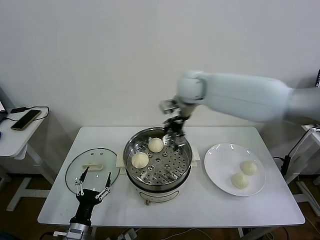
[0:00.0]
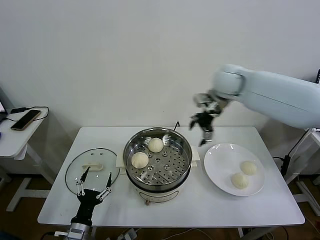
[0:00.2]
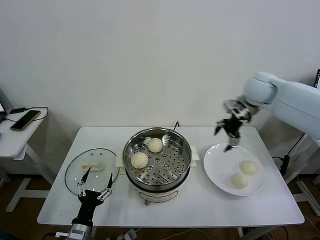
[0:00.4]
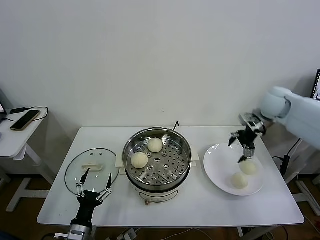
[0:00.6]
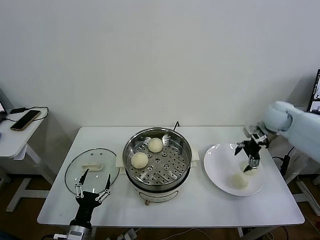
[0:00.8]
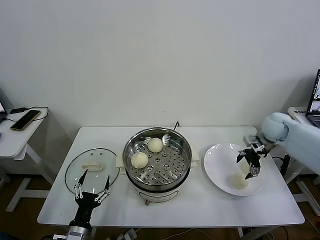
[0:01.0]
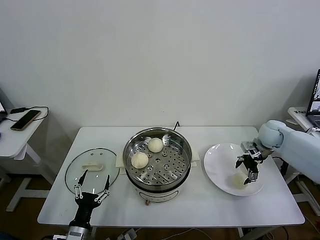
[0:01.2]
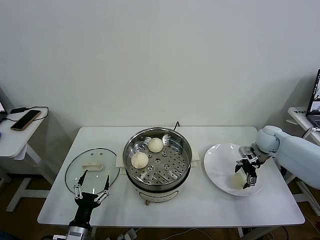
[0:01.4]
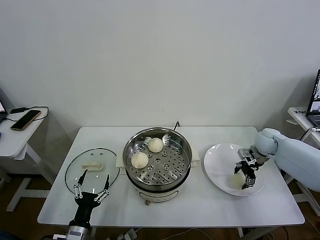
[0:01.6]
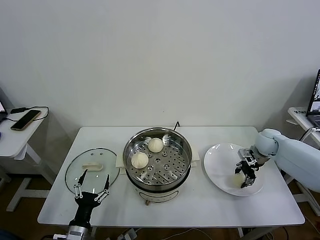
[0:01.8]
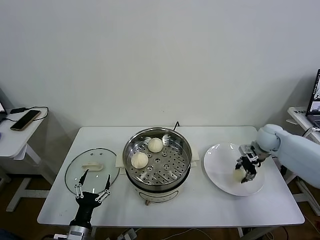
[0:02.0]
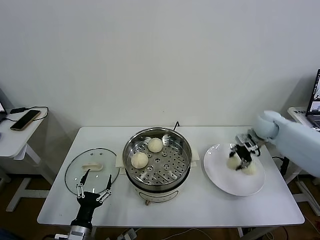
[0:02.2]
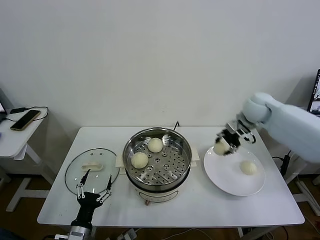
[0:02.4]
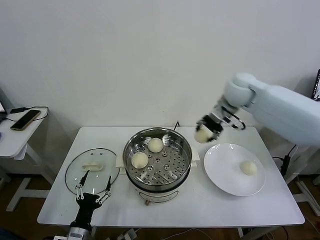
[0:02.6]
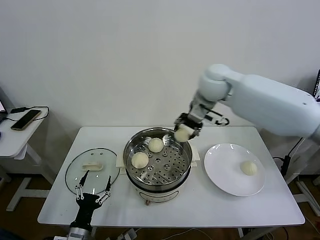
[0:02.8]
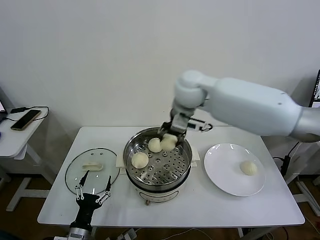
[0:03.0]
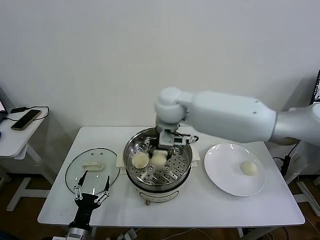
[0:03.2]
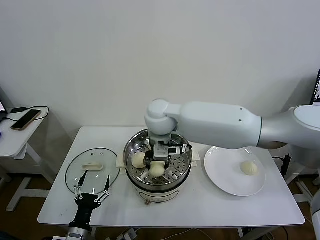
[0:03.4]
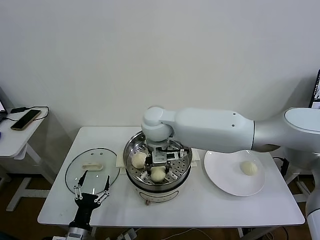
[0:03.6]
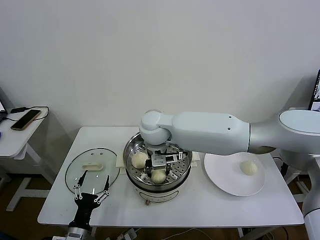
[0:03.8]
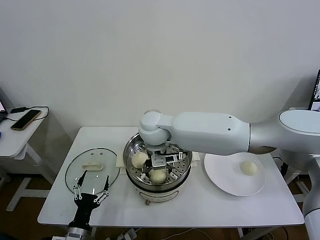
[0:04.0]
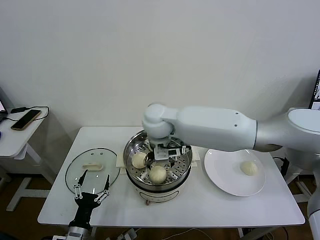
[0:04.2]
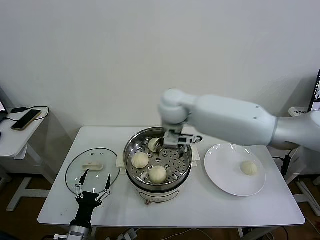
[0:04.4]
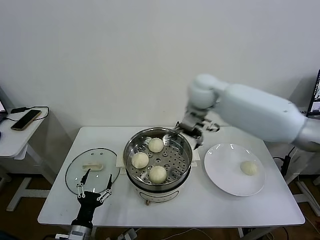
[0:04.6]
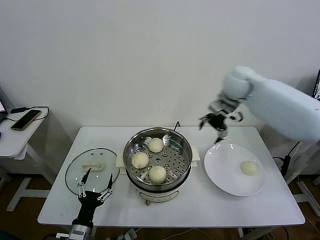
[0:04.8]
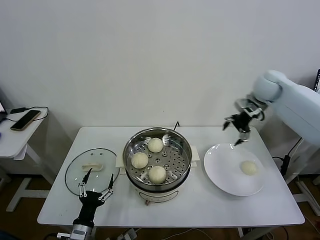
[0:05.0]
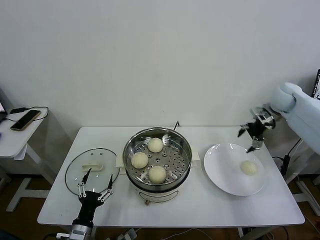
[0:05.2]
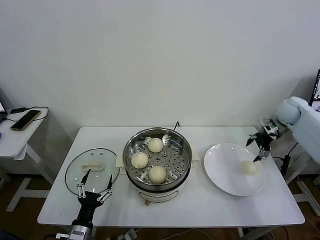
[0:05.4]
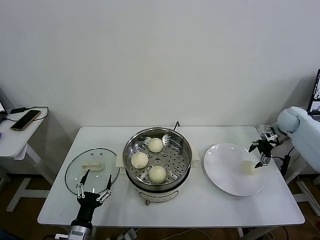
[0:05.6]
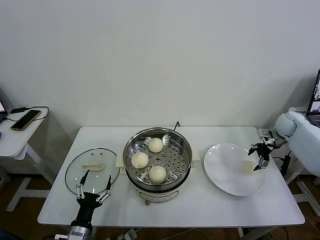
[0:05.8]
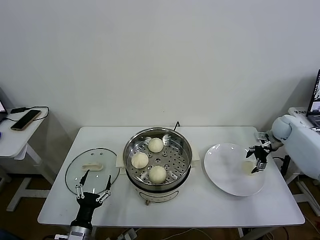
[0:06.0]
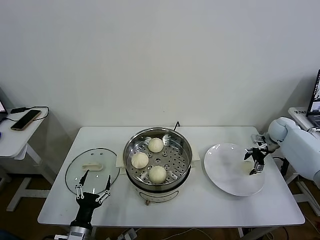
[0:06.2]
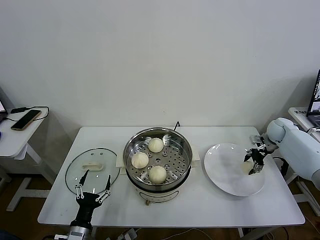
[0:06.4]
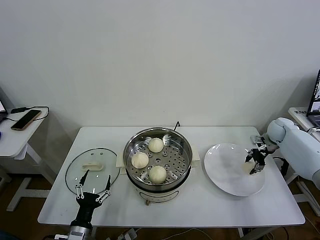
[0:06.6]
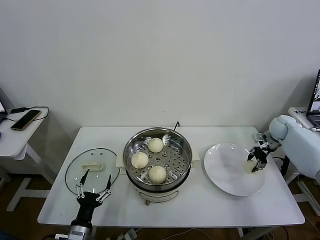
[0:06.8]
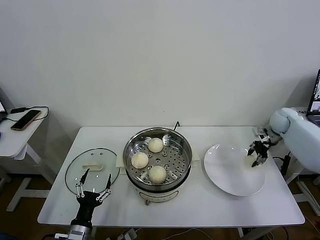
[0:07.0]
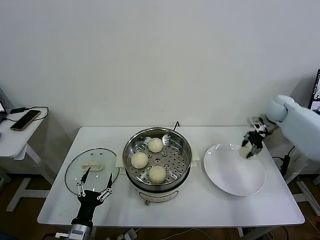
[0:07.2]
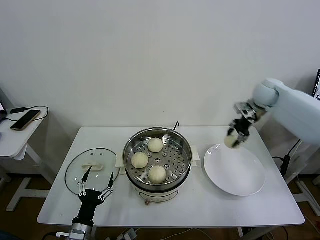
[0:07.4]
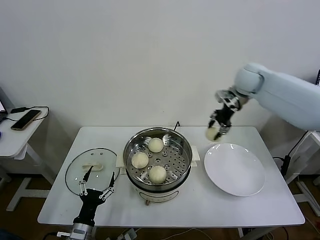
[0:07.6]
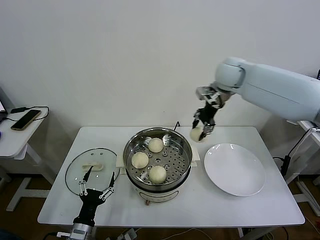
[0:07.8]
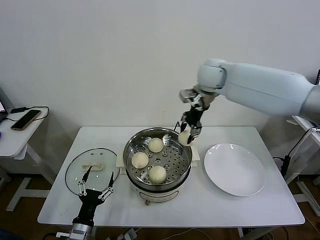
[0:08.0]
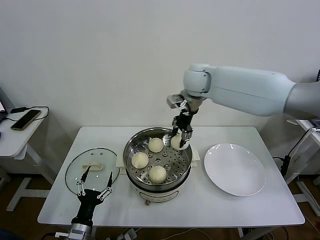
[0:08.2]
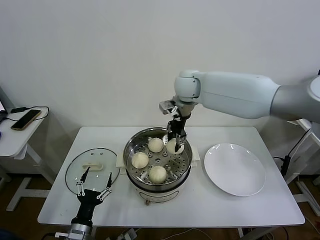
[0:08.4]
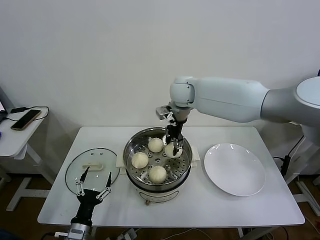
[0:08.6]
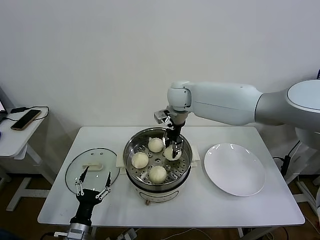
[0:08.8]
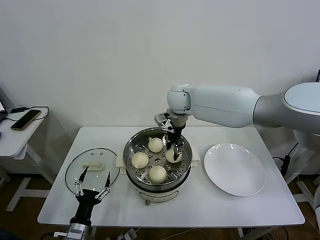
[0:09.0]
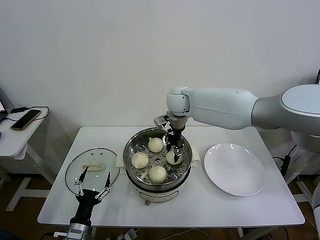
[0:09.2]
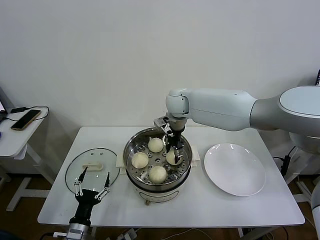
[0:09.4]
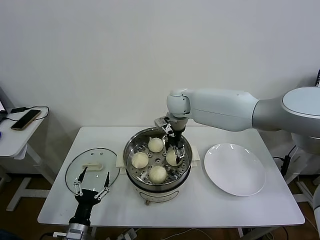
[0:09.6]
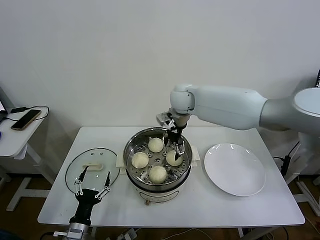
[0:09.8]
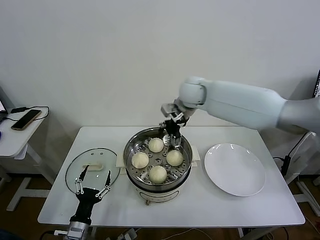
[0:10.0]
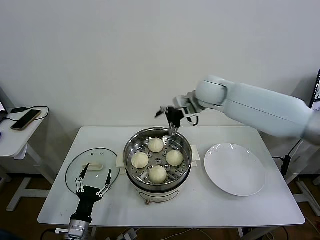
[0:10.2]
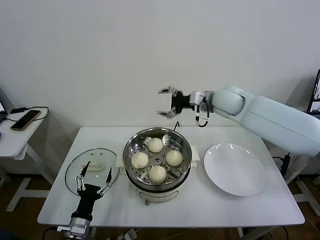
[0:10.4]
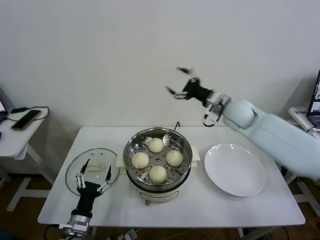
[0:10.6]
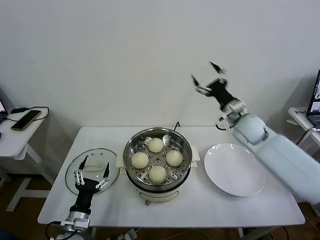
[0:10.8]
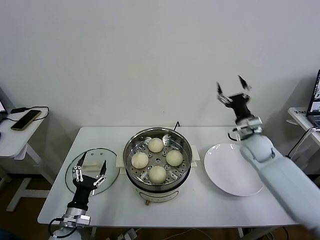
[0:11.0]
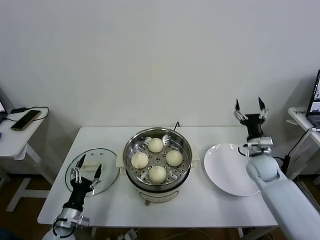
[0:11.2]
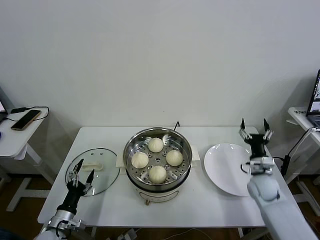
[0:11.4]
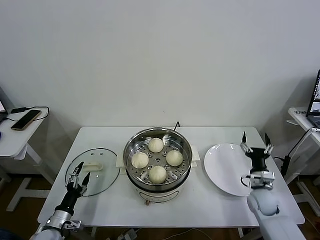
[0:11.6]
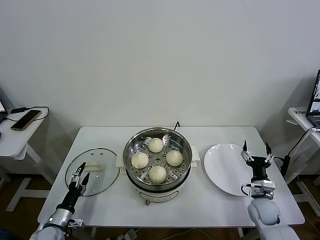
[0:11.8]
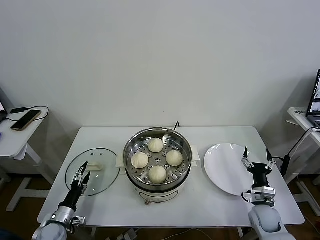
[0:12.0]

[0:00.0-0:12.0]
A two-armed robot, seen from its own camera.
Task of the whole recording: take steamed baozi put them in steamer then cover it.
Step, 0:00.0 to 0:01.8: Grasp the baozi in the plate with right gripper.
Step, 0:02.0 to 0:04.0: Place the baozi on the steamer with right gripper.
Step, 0:04.2 to 0:06.6: Grasp the baozi in the plate with right gripper.
Step, 0:06.8 to 0:09.6: Place the baozi on the steamer with right gripper.
0:00.0 to 0:01.6: The right gripper travels to the right and downward by about 35 cm.
0:01.6 to 0:03.0: The right gripper travels to the left and upward by roughly 40 cm, and closes its fingers.
0:03.0 to 0:04.4: The right gripper moves approximately 10 cm downward and comes back, and opens up.
0:04.4 to 0:06.0: The right gripper shifts about 40 cm to the right.
0:06.0 to 0:07.6: The right gripper shifts some 30 cm to the left and upward, and closes its fingers.
0:07.6 to 0:09.0: The right gripper moves to the left, some 20 cm.
0:09.0 to 0:10.4: The right gripper is displaced to the right by about 15 cm, and opens up.
0:10.4 to 0:12.0: The left gripper shifts some 15 cm to the left, downward and forward, while the right gripper heads downward, backward and to the right, covering some 50 cm.

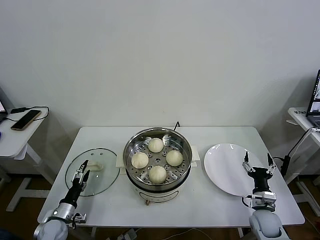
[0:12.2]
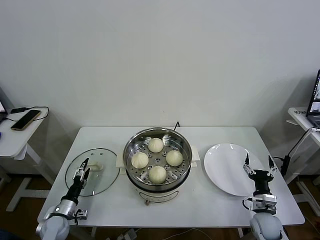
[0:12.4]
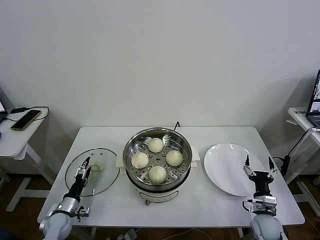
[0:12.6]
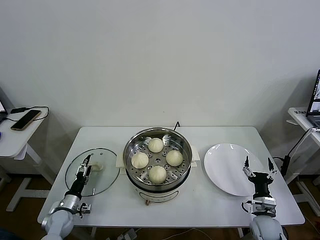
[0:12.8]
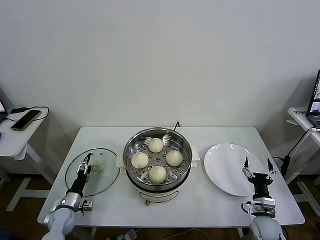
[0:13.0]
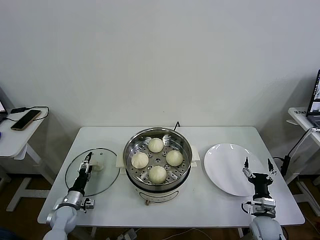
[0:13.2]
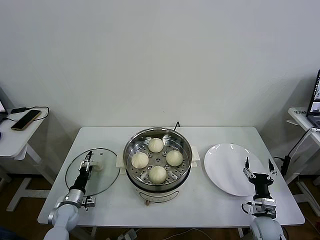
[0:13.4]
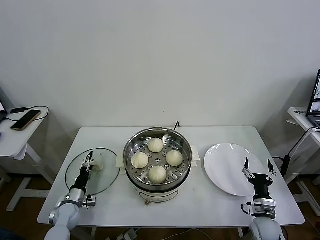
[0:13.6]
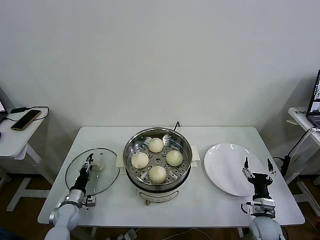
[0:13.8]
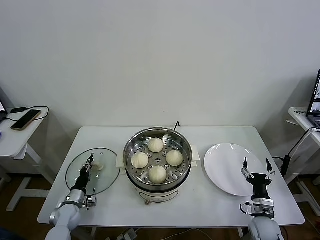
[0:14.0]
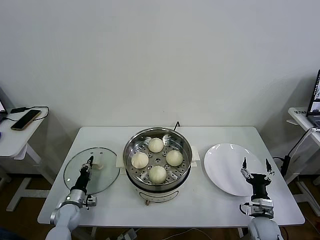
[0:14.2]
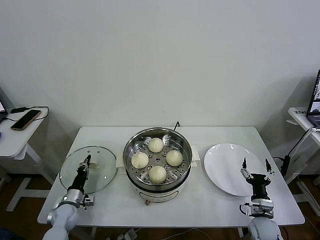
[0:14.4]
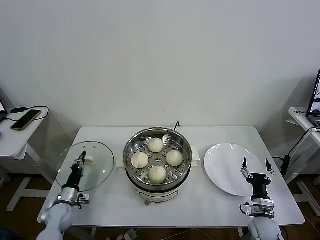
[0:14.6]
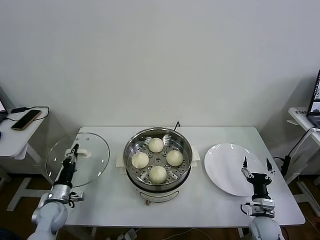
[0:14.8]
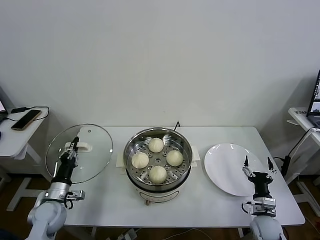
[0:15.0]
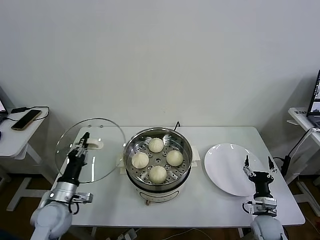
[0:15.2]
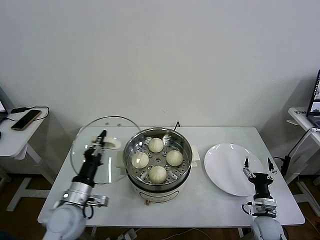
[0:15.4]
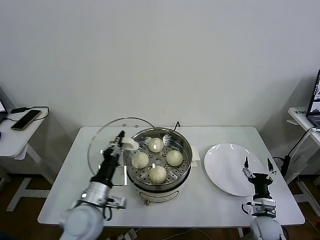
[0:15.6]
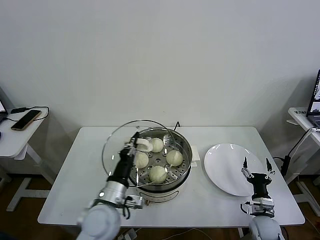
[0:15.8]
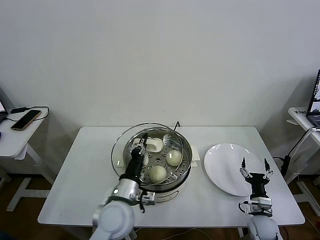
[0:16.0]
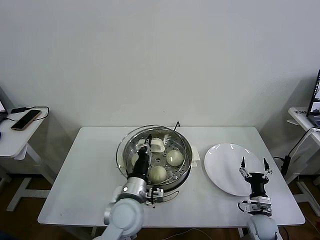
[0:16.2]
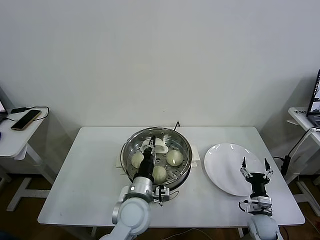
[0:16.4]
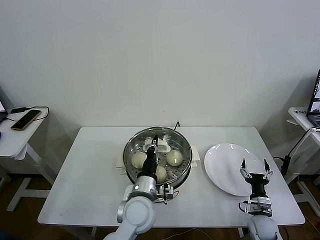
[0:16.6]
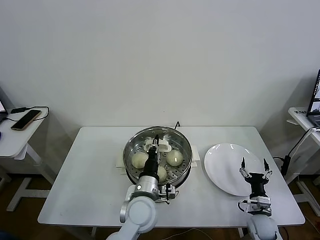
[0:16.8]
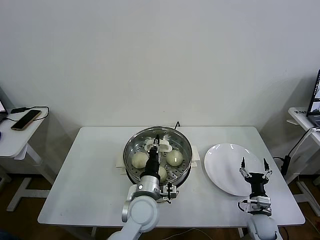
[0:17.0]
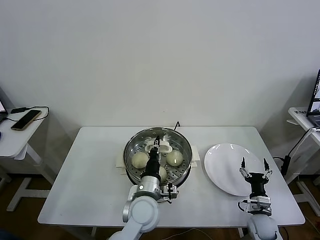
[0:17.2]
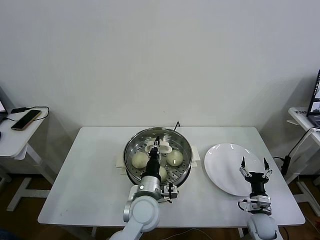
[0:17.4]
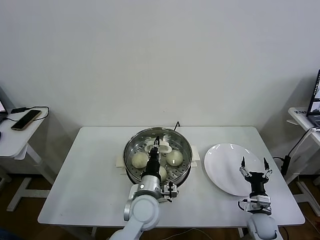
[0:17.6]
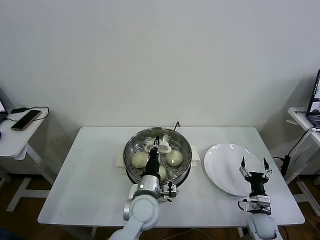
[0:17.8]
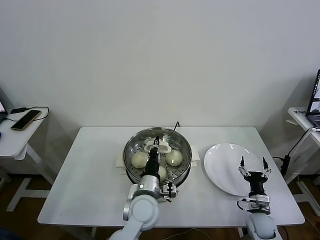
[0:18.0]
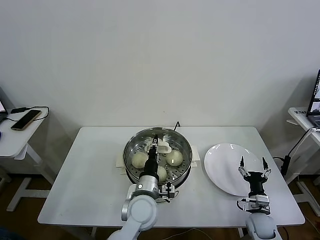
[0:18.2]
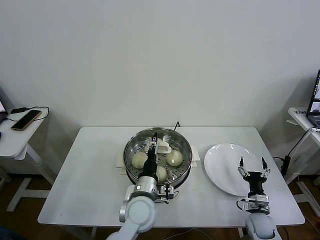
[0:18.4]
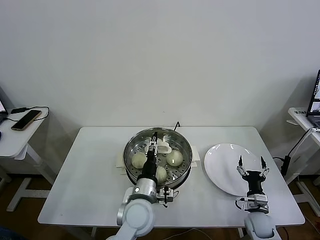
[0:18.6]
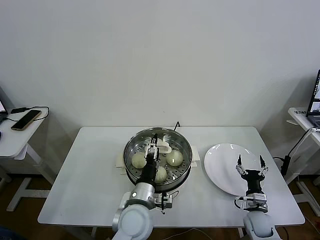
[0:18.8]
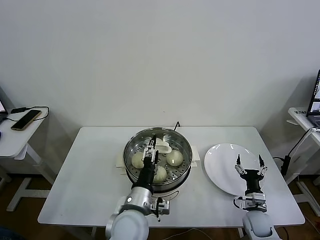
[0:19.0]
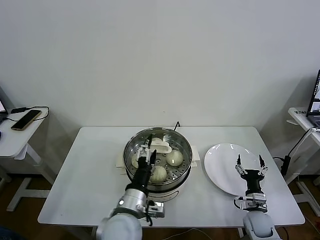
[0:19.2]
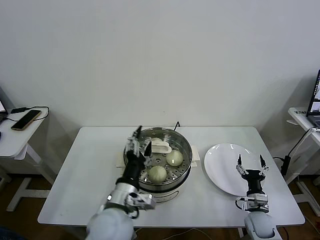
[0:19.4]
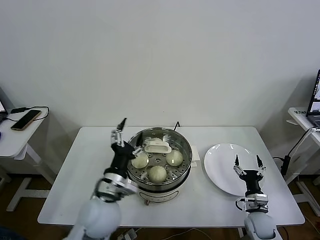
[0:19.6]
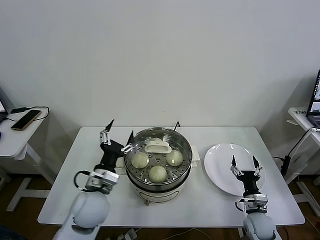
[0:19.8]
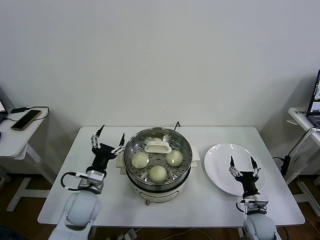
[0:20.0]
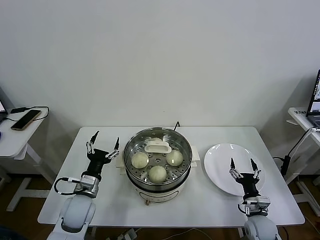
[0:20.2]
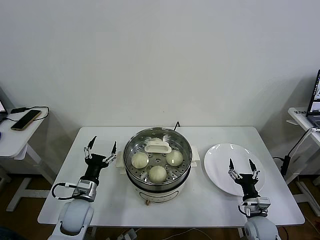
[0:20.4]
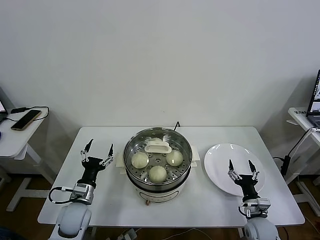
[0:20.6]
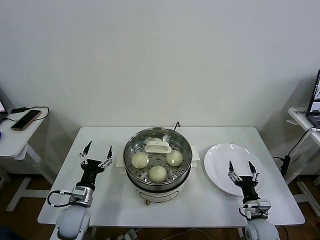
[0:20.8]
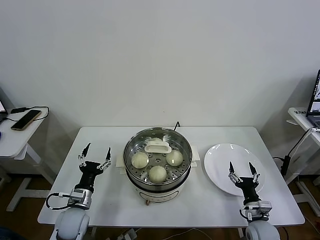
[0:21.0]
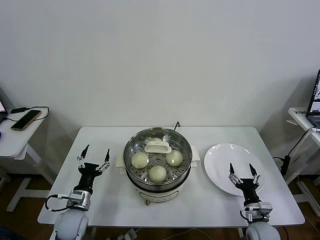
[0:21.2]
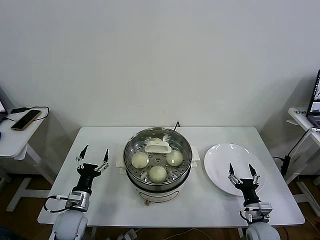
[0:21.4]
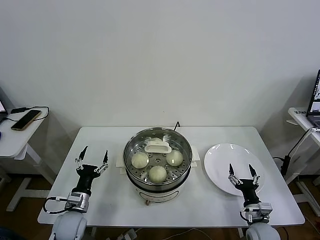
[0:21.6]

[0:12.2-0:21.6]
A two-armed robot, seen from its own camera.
Task of the whole recording: take steamed baozi put them in steamer then cover it.
Step, 0:12.2 to 0:14.2: Grasp the pot lid with left gripper.
Step, 0:14.6 to 0:18.4: Place the pot lid on the steamer with left gripper.
0:12.2 to 0:13.8: The left gripper travels forward by roughly 5 cm, and closes.
0:13.8 to 0:15.4: The left gripper moves upward and to the right, some 20 cm, and closes up.
0:15.4 to 0:17.0: The left gripper travels to the right by approximately 20 cm.
0:17.0 to 0:18.4: The left gripper opens.
0:18.4 to 0:20.0: The left gripper goes about 15 cm to the left, and opens.
0:20.0 to 0:21.6: The left gripper goes about 15 cm downward and to the left.
